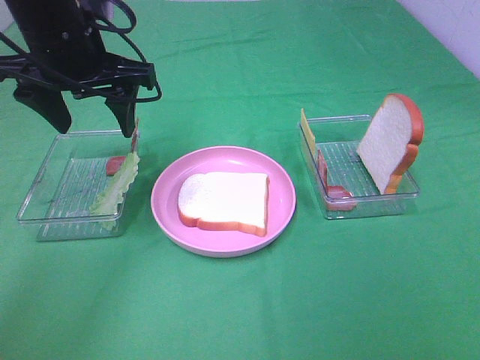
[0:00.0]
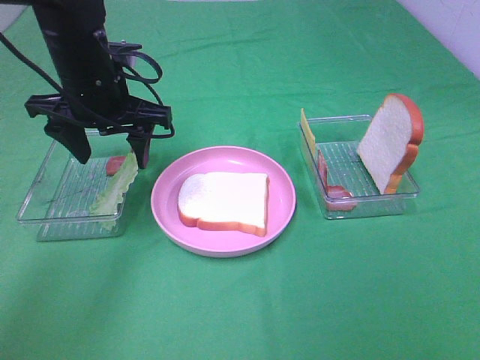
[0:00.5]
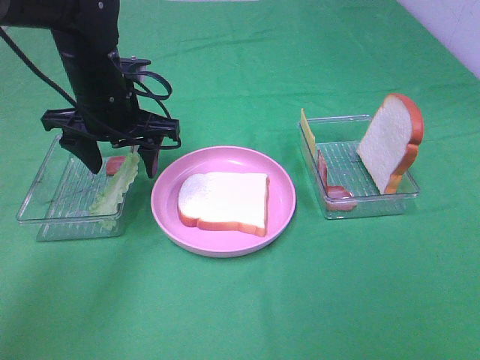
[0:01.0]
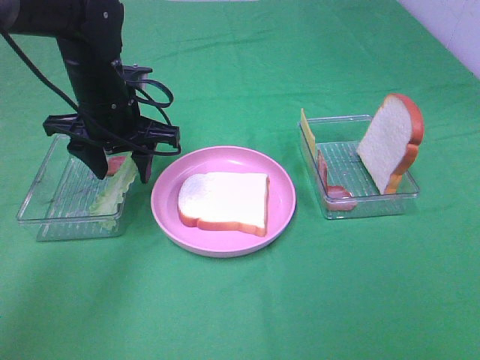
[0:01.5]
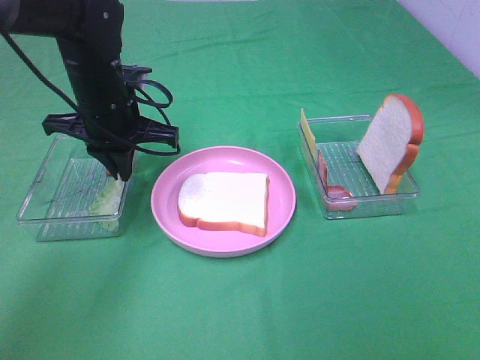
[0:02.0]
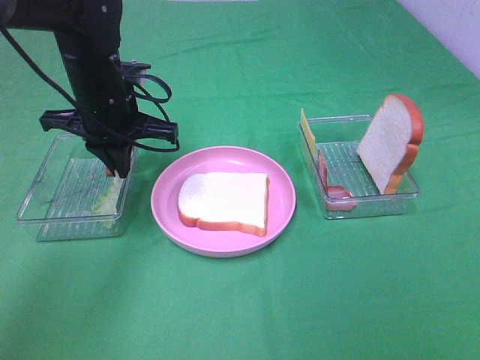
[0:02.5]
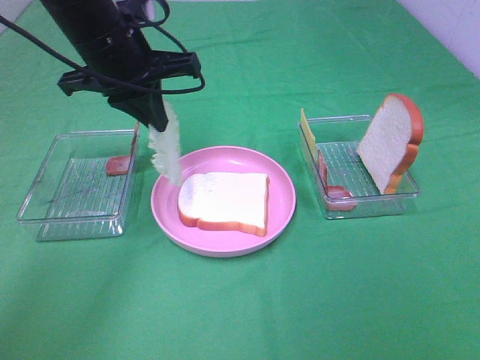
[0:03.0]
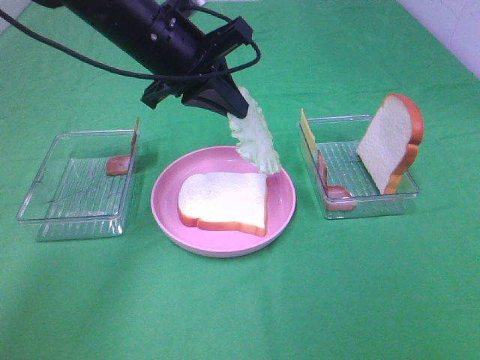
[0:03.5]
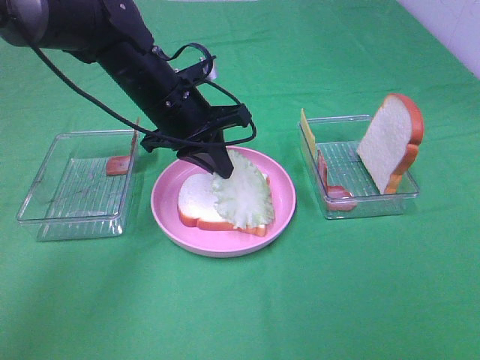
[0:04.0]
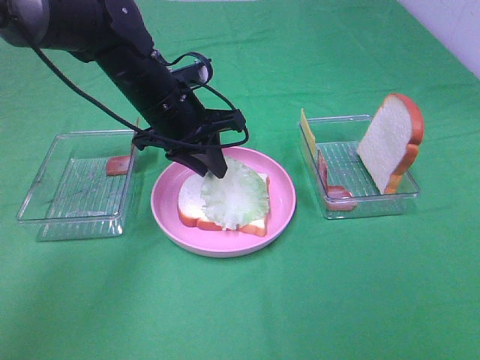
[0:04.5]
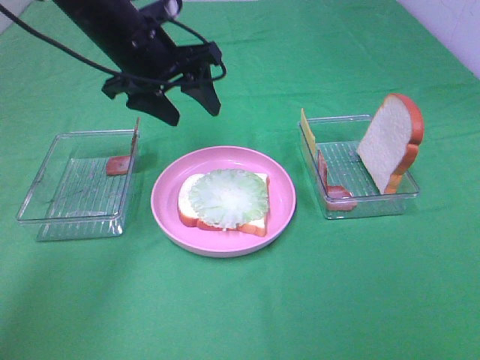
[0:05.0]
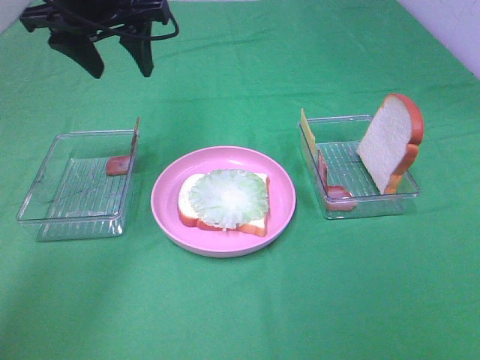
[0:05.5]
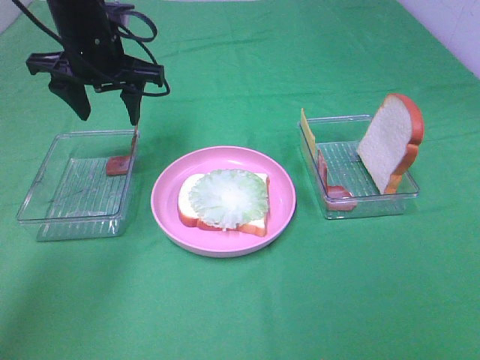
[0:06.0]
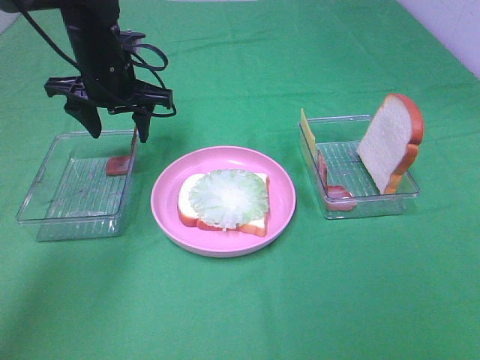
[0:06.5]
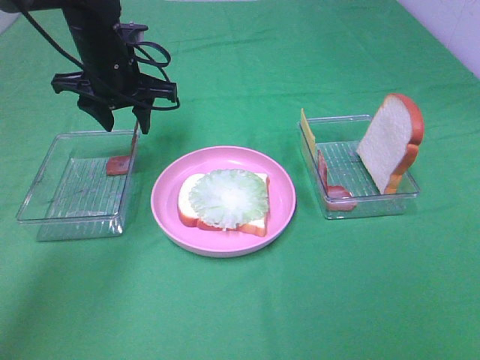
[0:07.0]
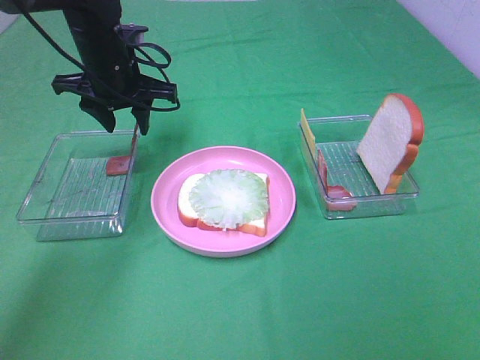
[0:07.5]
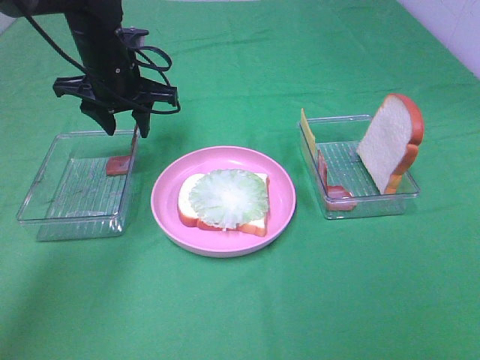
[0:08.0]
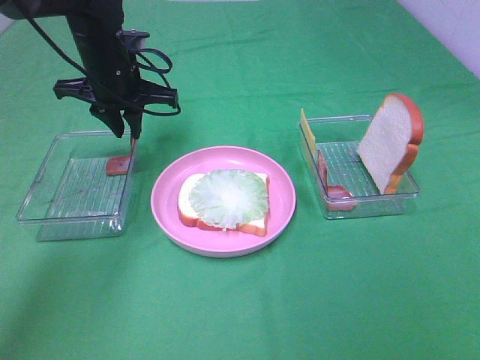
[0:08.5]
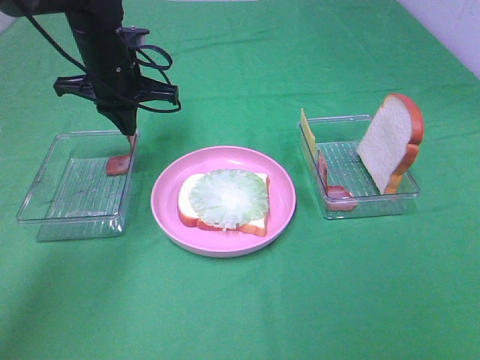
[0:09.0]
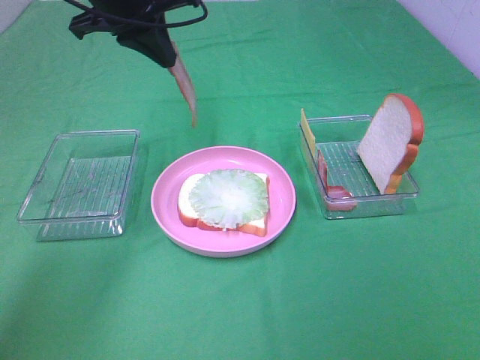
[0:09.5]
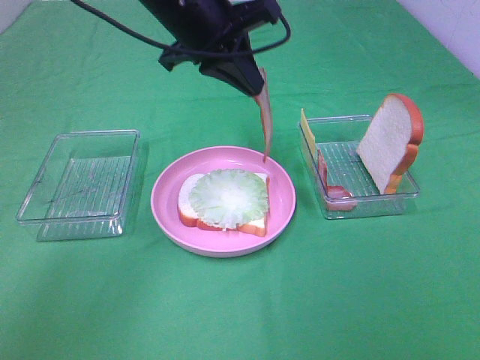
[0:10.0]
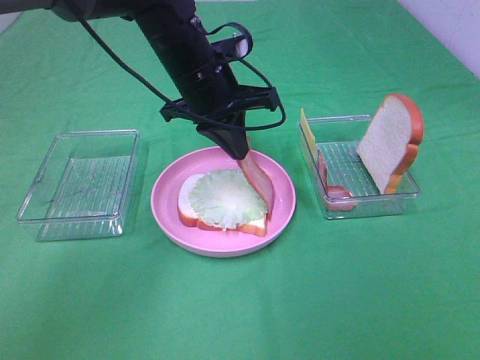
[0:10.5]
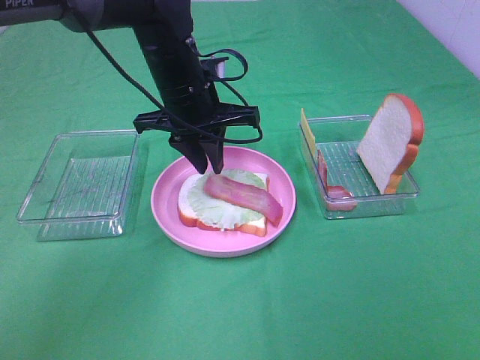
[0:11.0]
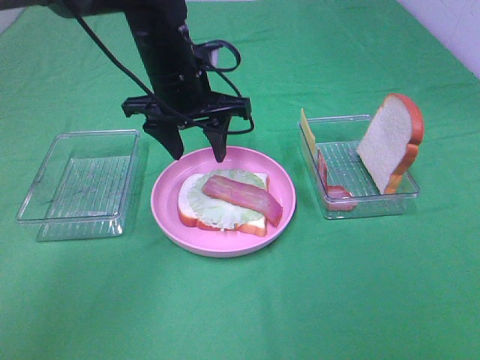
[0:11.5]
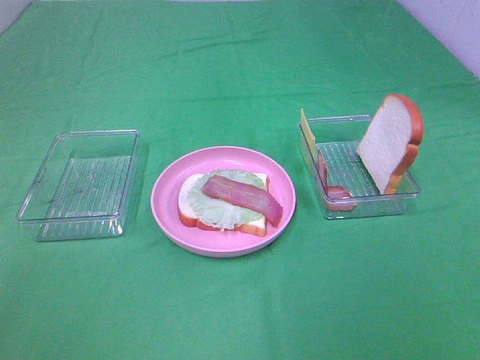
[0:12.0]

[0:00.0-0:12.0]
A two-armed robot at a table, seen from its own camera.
Task of the whole recording: Make sandwiches.
Step, 0:00.0 to 0:02.0: Left hand:grab the lettuce slice.
Step, 0:02.5 to 0:05.0: Left hand:place the lettuce slice on the bread slice.
Step, 0:05.5 to 0:08.5: Left hand:grab the bacon.
Step, 0:09.0 to 0:11.0: Left hand:place bacon on lettuce slice.
0:00.0 to 0:02.0: The left gripper goes approximately 10 cm downward, and closes up.
0:02.0 to 0:04.0: The left gripper heads to the right, covering approximately 5 cm, and travels upward and back again, about 10 cm each way.
0:04.0 to 0:06.0: The left gripper is displaced to the left and forward by approximately 10 cm, and opens up.
0:06.0 to 0:08.0: The grippers move only a little.
0:08.0 to 0:10.0: The left gripper travels to the right, upward and backward by roughly 15 cm, and closes.
0:10.0 to 0:12.0: The left gripper shifts some 20 cm upward, backward and to the left, and opens up.

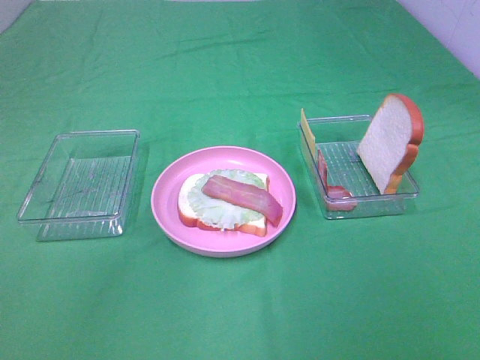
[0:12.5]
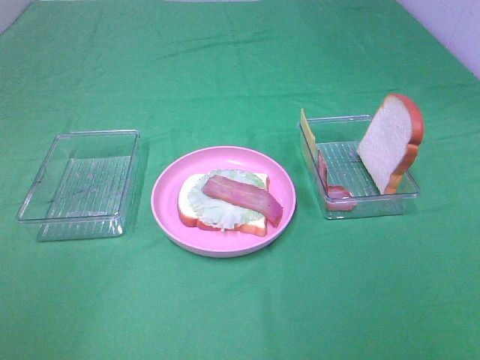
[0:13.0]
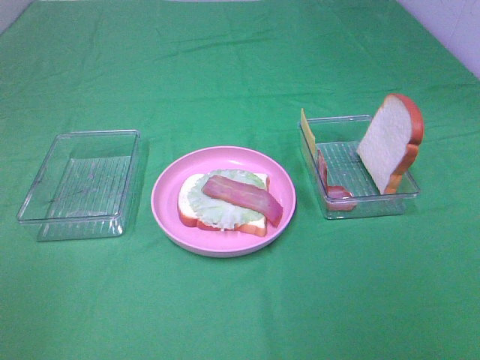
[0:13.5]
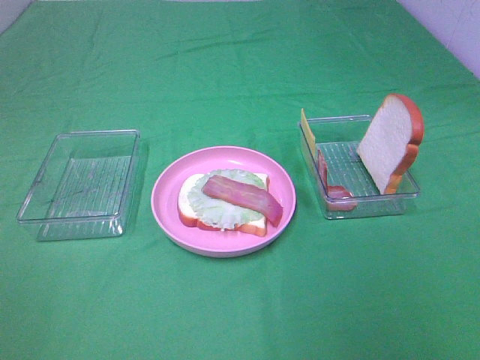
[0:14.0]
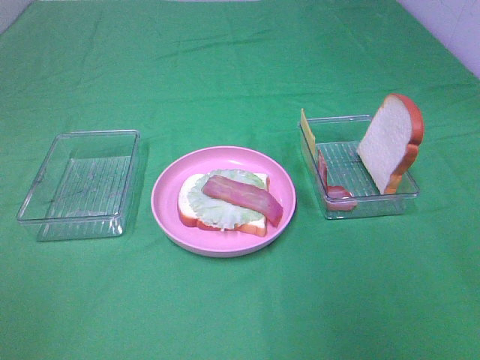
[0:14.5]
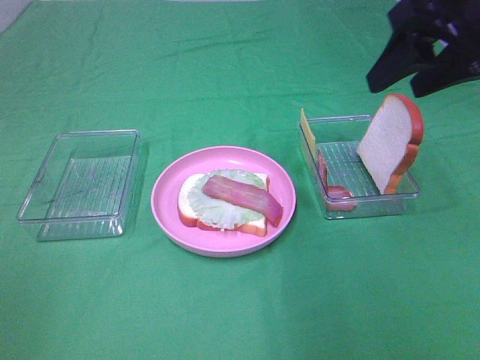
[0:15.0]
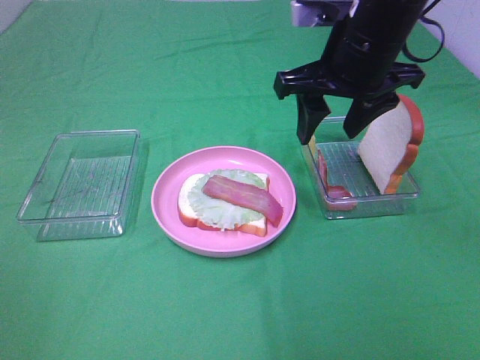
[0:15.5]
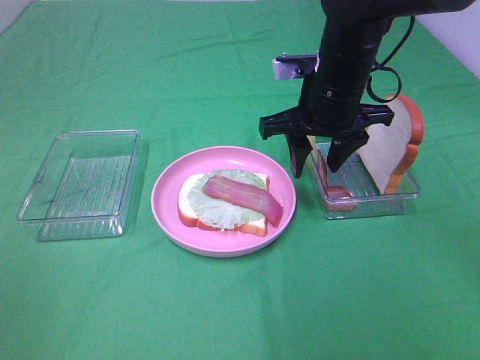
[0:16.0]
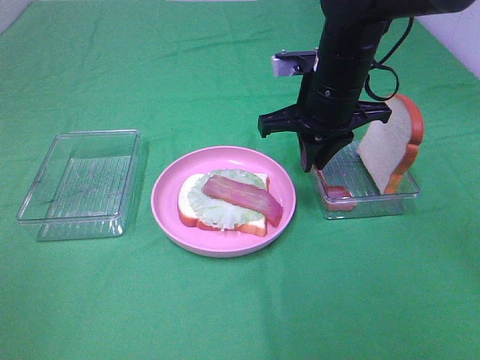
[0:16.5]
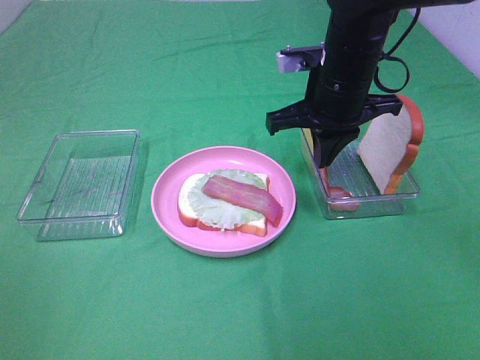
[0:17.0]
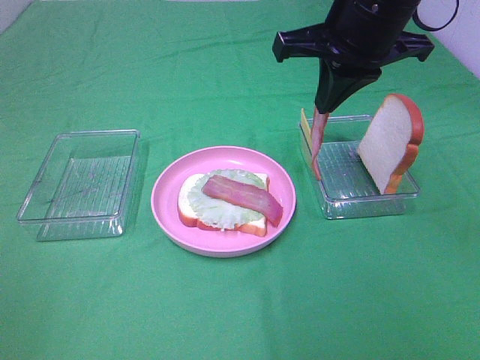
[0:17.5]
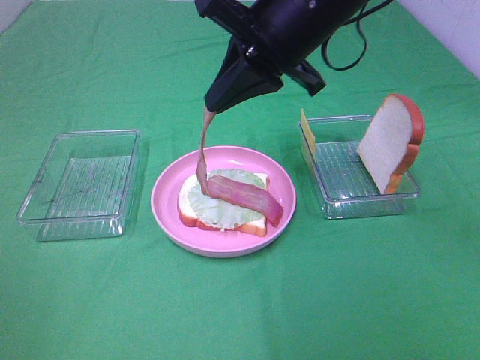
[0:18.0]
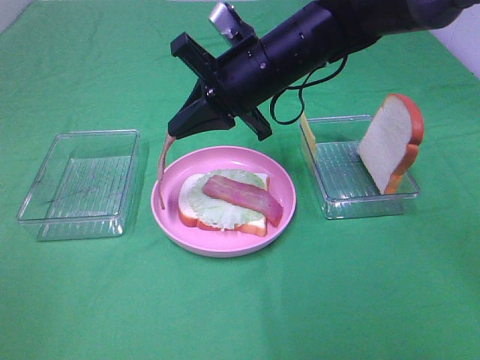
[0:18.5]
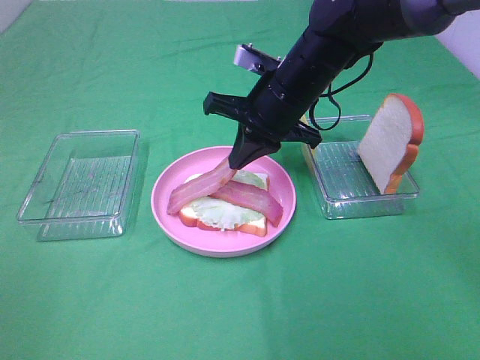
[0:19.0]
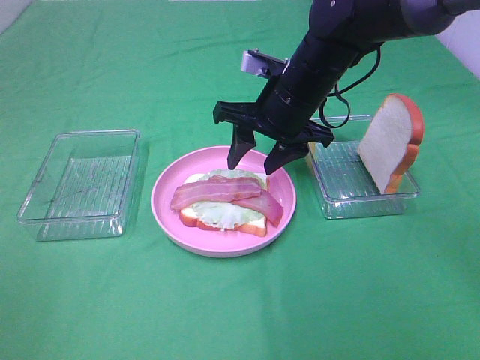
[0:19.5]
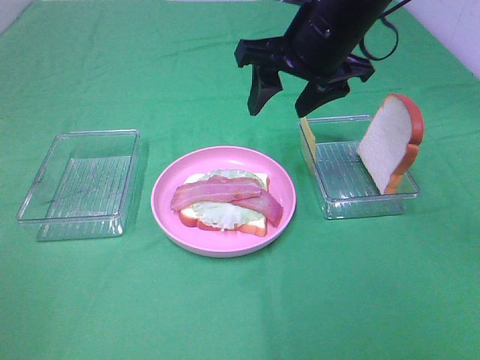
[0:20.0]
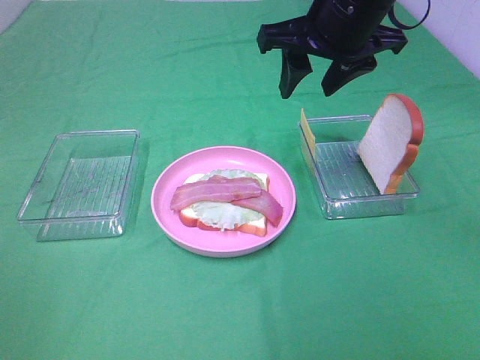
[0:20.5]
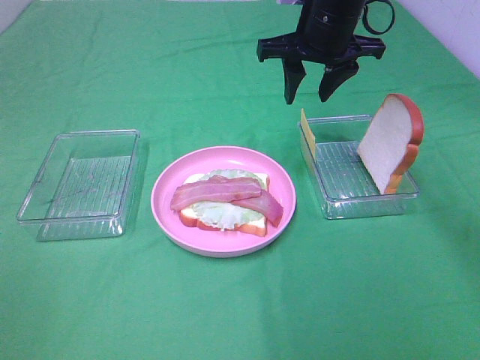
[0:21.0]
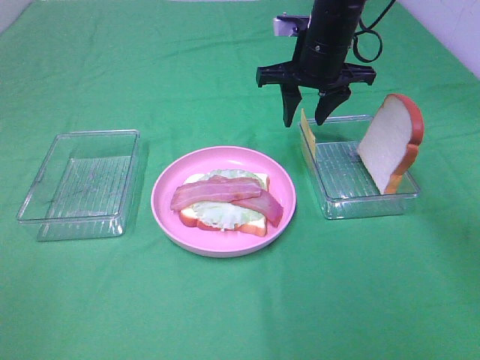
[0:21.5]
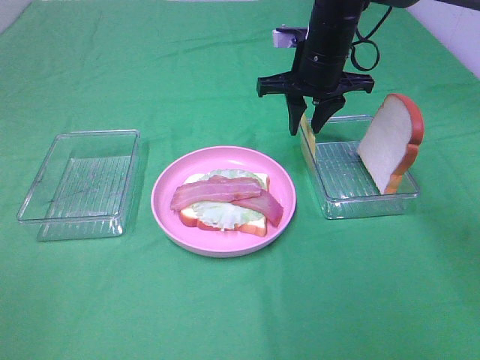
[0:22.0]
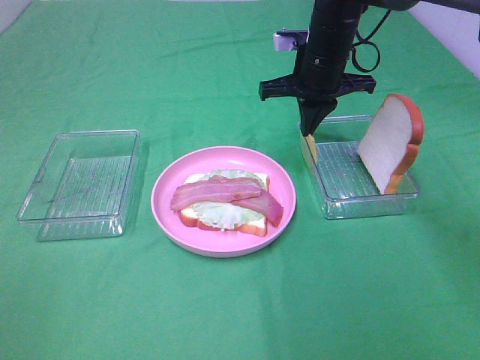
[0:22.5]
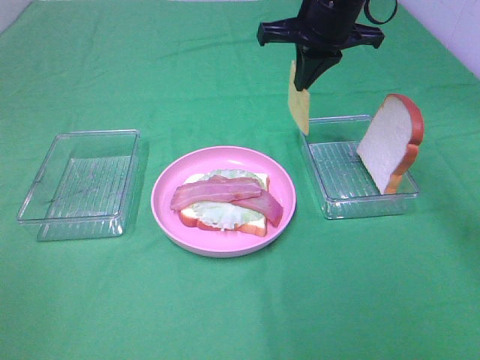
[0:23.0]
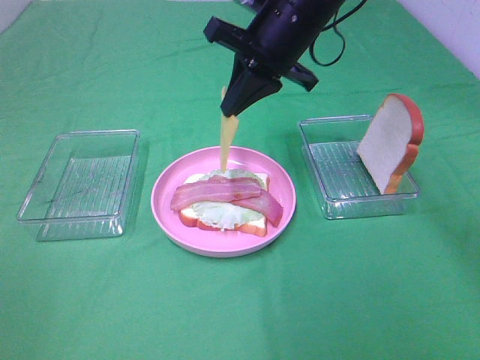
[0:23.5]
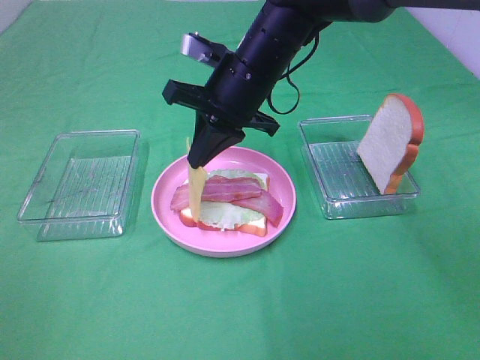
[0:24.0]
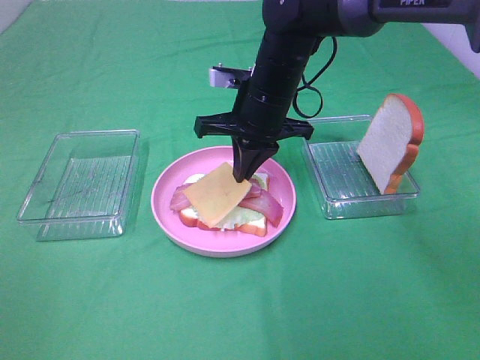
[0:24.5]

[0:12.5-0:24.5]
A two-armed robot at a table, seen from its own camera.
Task of the whole recording: Make sandwiches.
Step, 0:12.5 to 0:16.5: Right hand:grab the bacon.
Step, 0:17.0 to 0:19.5: Right hand:place bacon on bacon.
Step, 0:20.0 to 0:22.5: Right hand:grab the cheese slice.
0:14.5 to 0:16.5: The right gripper goes roughly 30 cm forward, to the left and downward, and closes.
0:16.5 to 0:18.5: The right gripper is displaced to the left by some 5 cm, and moves approximately 10 cm upward and comes back.
0:18.5 to 0:20.5: The right gripper is displaced upward and to the right by some 10 cm, and opens up.
0:20.5 to 0:22.5: The right gripper heads downward and forward, covering roughly 15 cm, and closes.
0:22.5 to 0:24.5: The right gripper goes approximately 10 cm to the left and backward, and reaches approximately 10 cm upward, then returns.

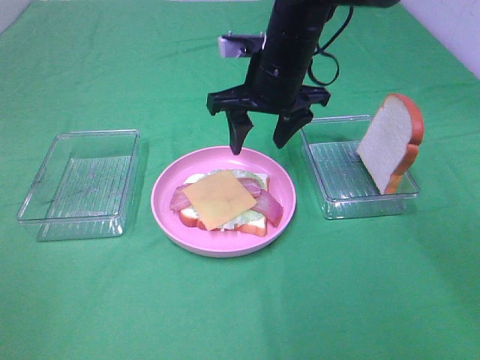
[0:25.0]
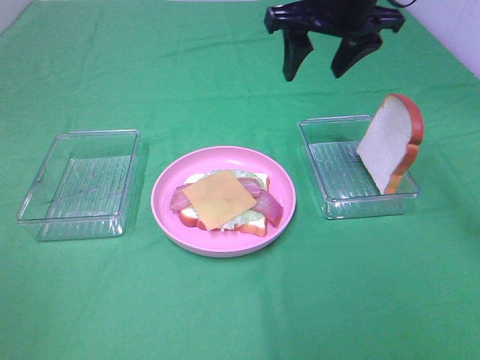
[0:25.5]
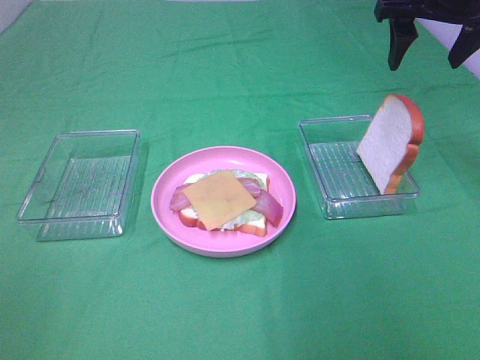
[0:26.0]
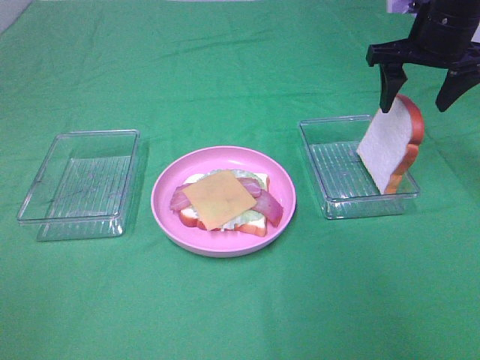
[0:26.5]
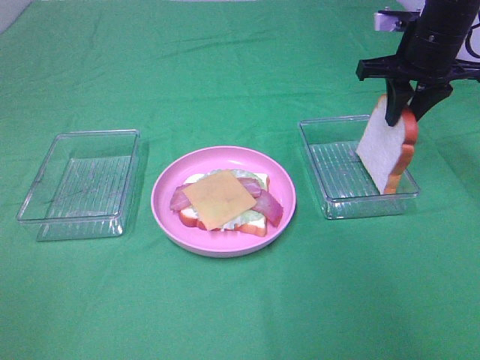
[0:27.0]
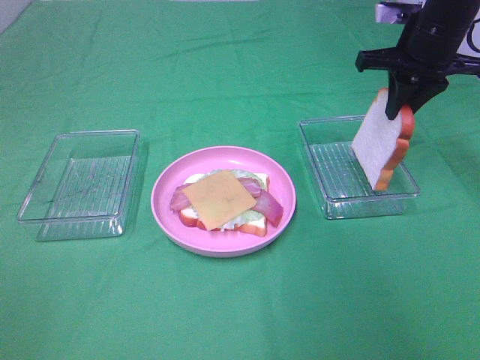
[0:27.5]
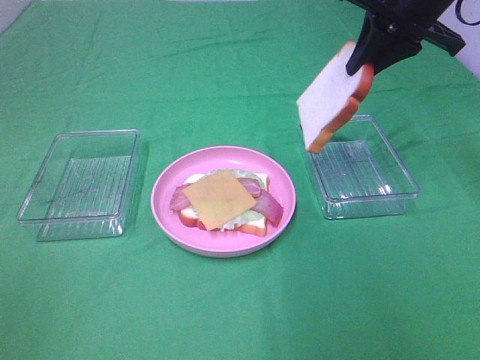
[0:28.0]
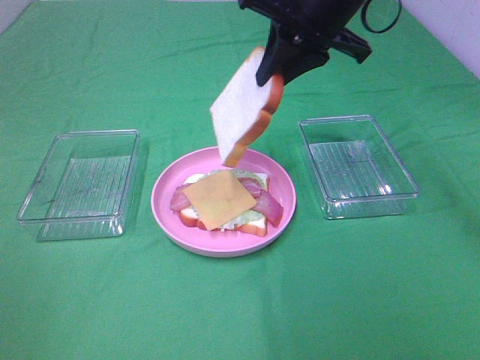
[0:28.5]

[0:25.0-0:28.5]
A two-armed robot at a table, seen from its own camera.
Task of the whole recording: Make sandwiches.
Step, 0:25.5 to 0:27.0: Right hand:grab the bread slice.
0:25.0 to 0:27.0: The right gripper is displaced to the right by about 20 cm, and closes.
0:27.0 to 0:28.5: The right gripper travels to the left and upward by about 15 cm.
